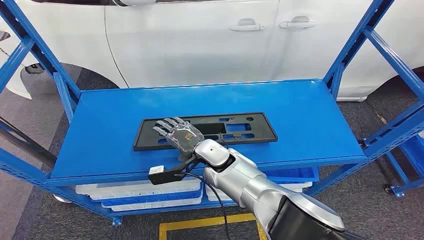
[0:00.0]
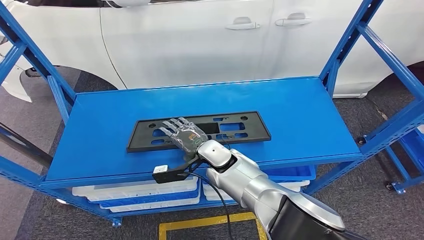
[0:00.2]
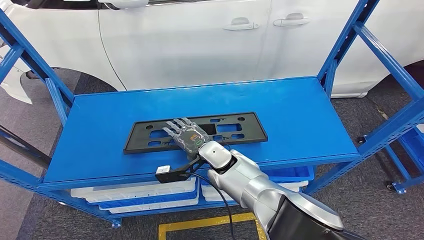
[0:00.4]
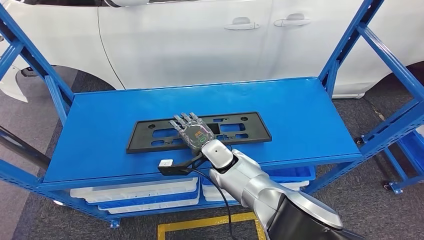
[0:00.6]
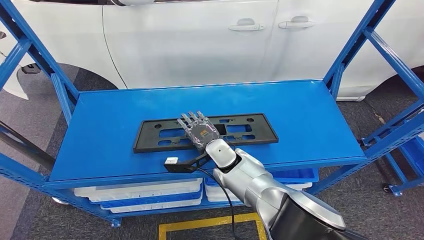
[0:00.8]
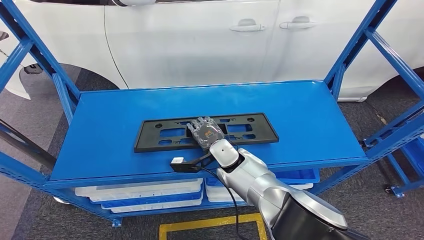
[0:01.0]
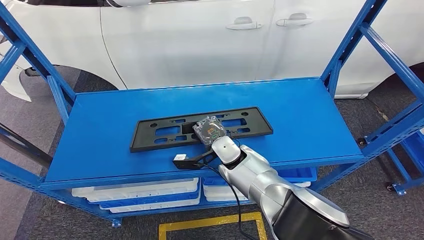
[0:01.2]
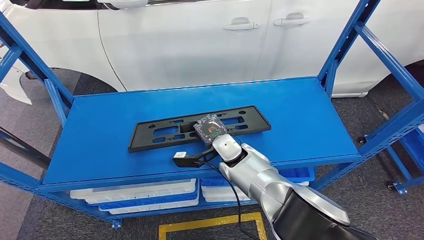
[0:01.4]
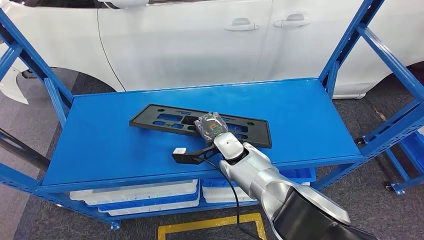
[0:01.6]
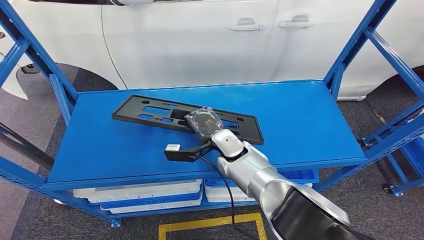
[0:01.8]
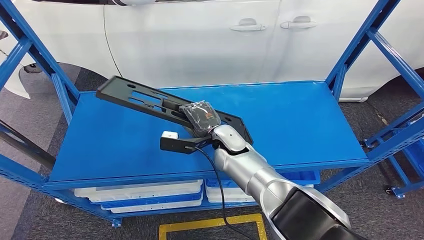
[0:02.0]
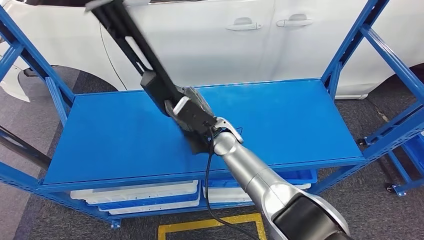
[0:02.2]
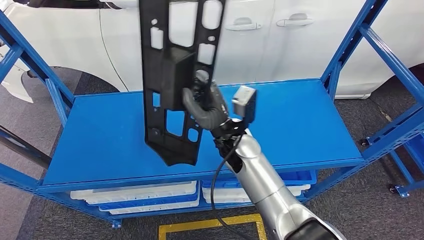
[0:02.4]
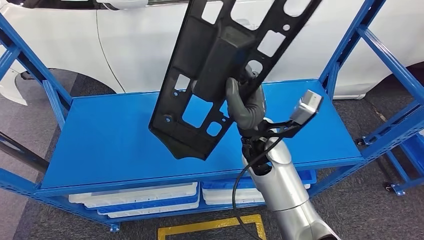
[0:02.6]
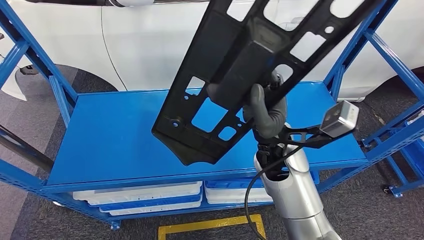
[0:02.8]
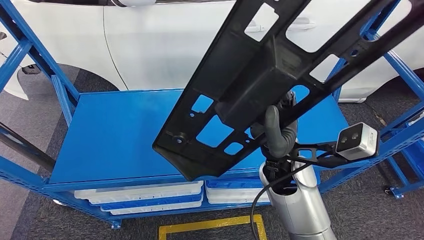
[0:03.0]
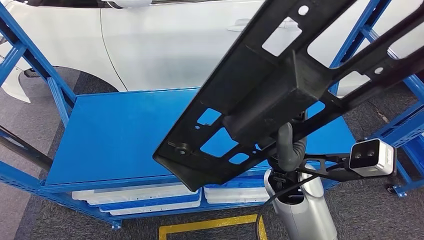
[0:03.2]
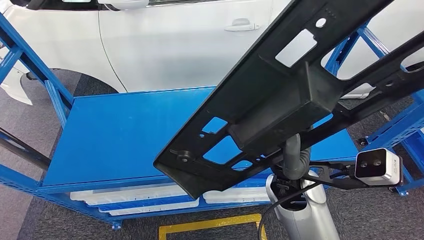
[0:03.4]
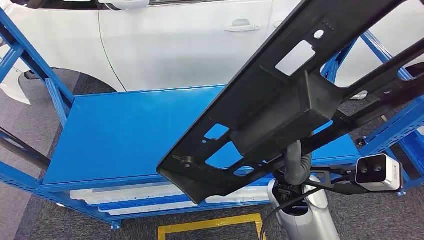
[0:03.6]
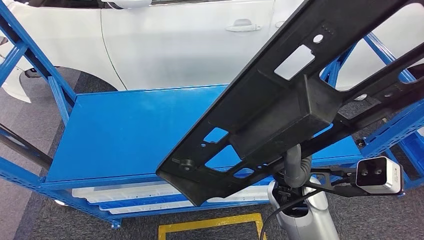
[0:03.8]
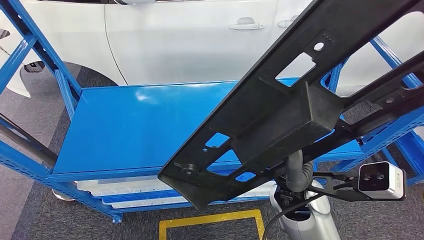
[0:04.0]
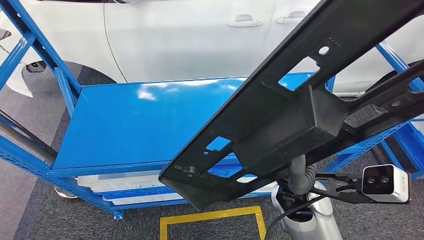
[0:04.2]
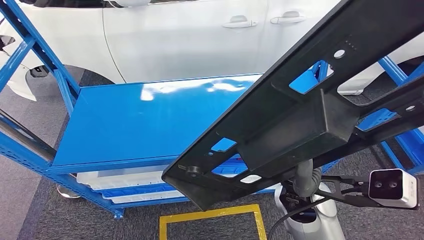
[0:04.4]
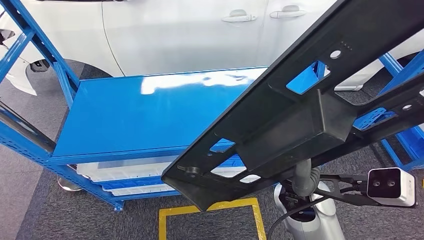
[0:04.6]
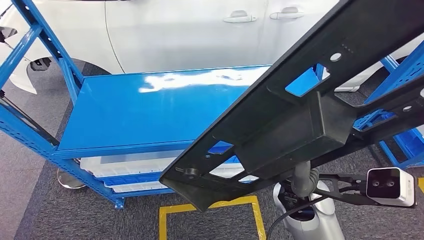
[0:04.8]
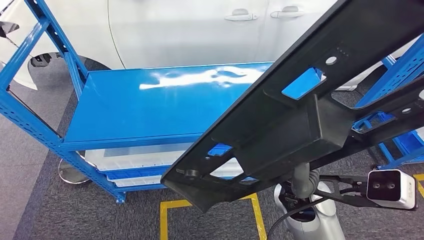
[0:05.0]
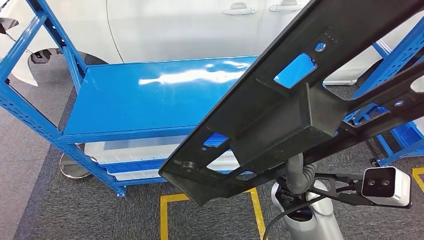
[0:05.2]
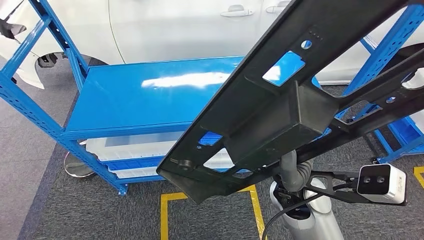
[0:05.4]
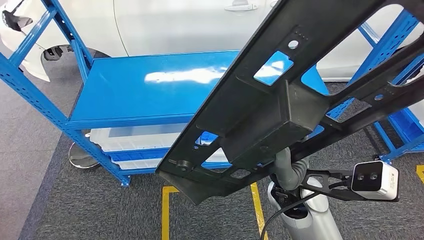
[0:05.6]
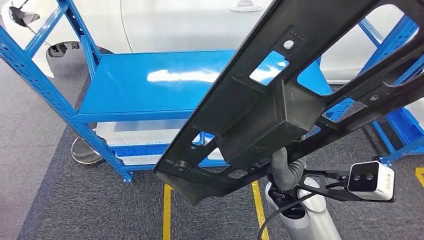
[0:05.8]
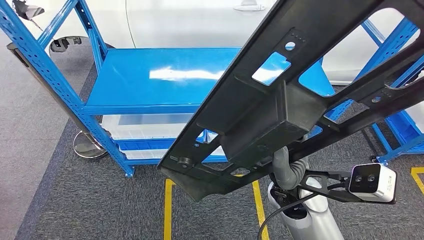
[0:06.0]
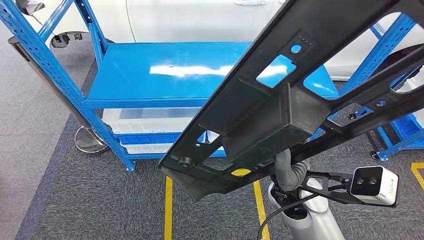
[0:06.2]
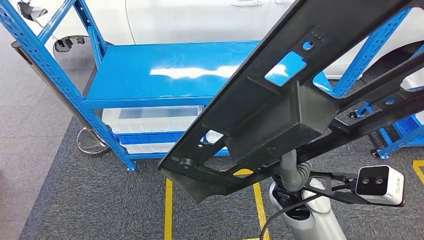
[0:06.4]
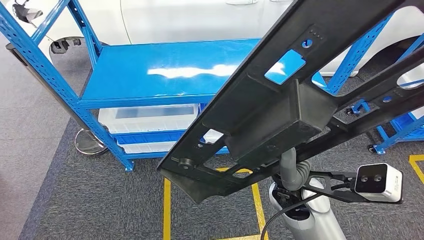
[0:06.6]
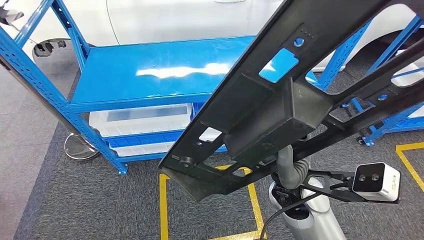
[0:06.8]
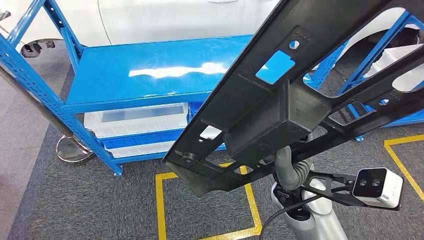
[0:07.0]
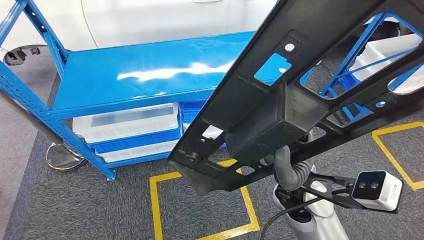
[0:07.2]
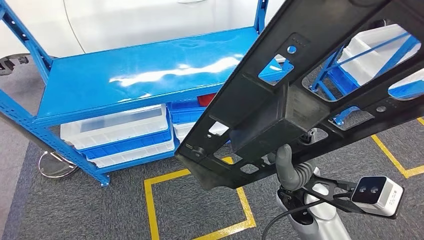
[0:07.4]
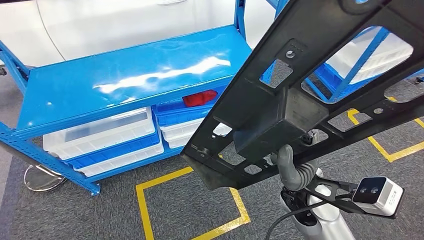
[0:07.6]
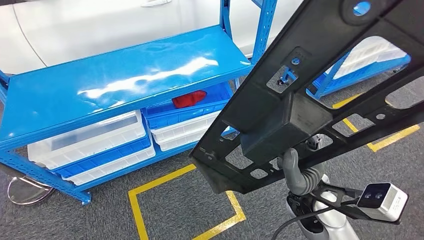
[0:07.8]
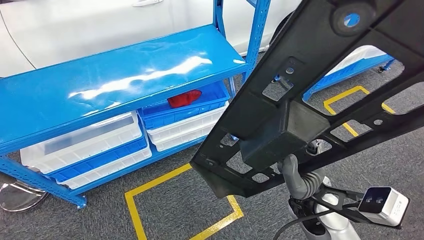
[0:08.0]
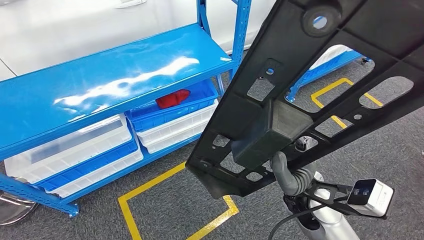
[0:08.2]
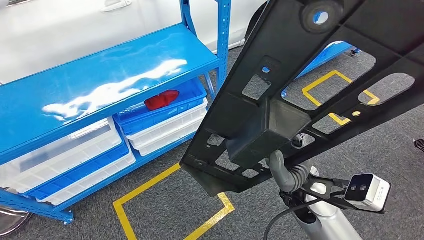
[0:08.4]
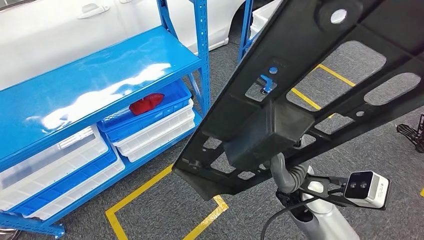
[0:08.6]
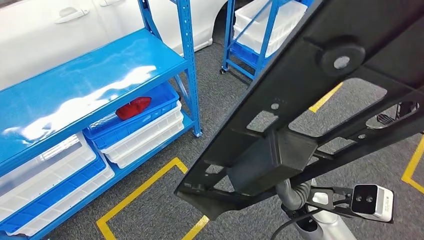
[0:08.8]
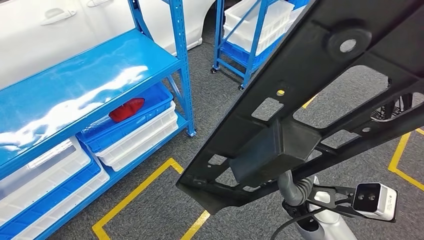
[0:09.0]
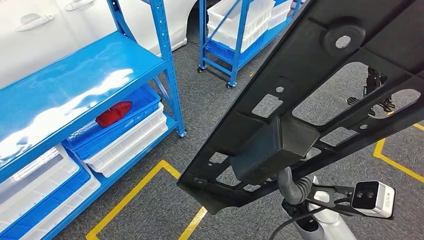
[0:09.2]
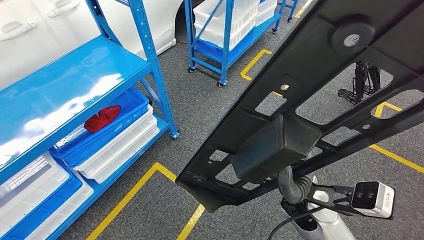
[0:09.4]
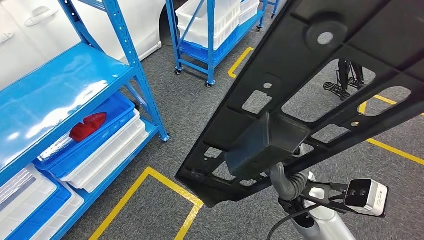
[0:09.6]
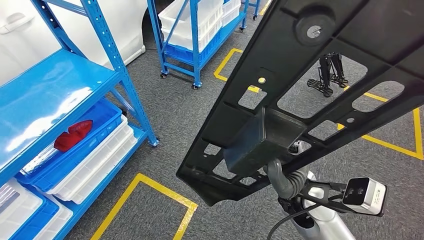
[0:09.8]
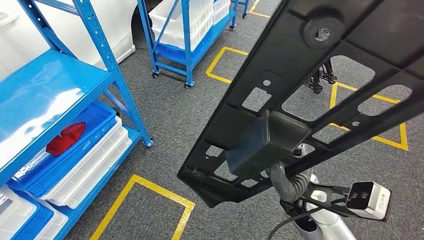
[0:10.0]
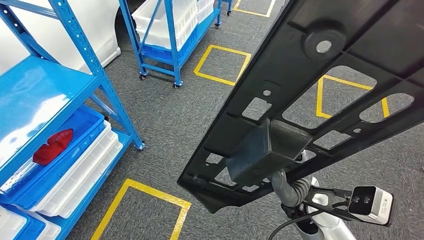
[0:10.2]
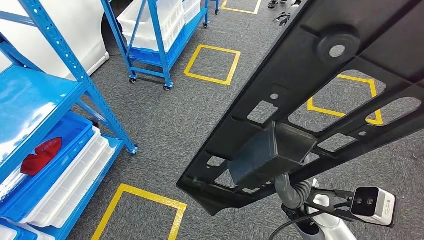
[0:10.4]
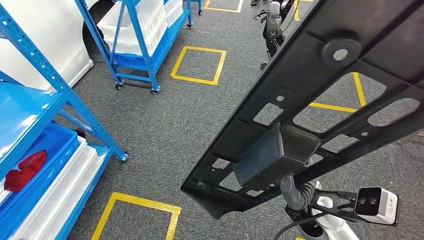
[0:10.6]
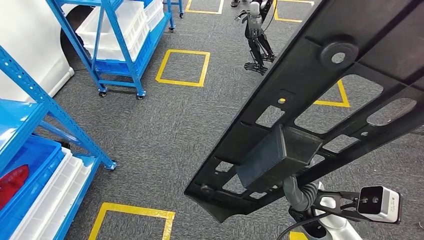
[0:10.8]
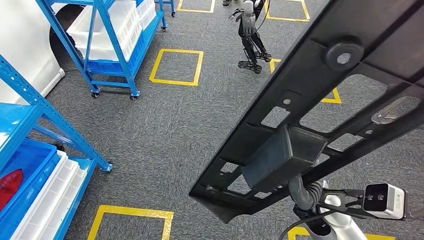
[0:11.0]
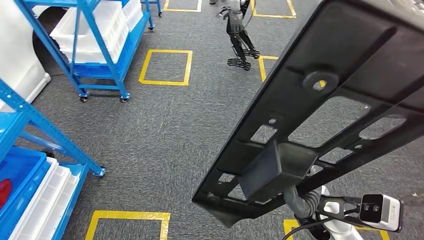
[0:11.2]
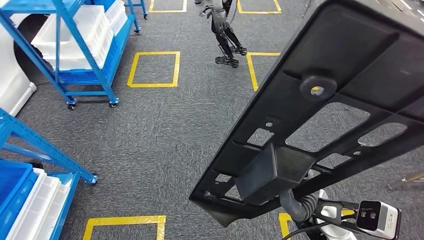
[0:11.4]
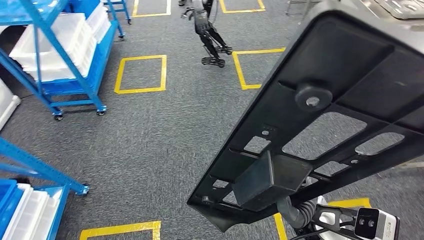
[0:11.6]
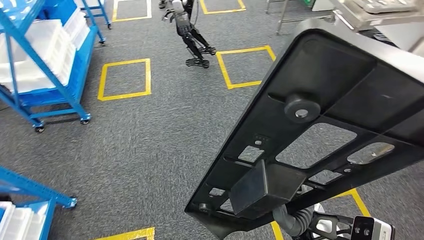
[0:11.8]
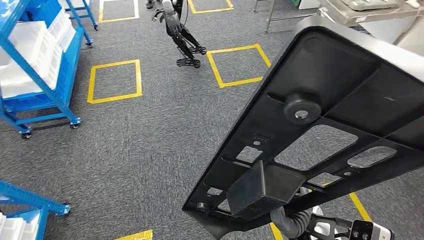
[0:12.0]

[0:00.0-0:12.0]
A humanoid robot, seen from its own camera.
Step, 0:00.0 to 0:03.0: Pick up the small component from the shelf.

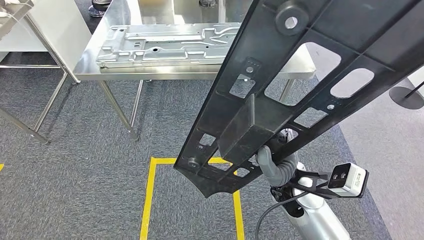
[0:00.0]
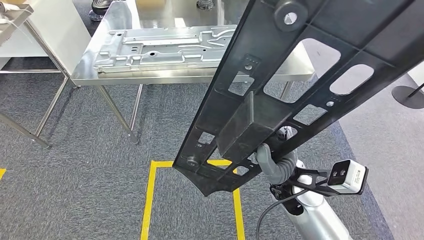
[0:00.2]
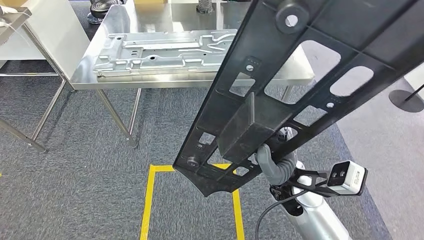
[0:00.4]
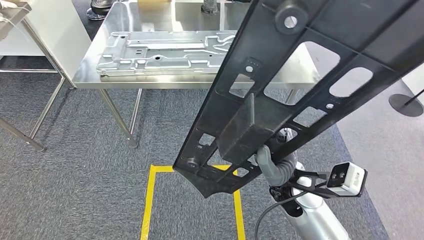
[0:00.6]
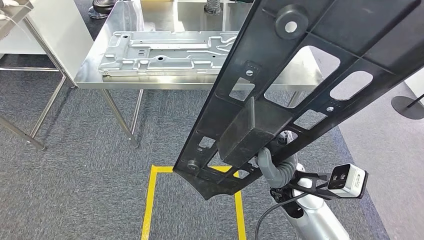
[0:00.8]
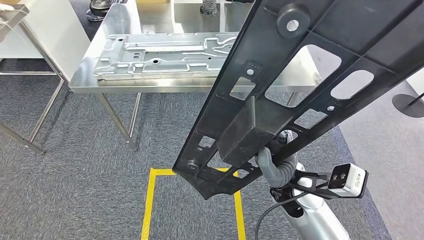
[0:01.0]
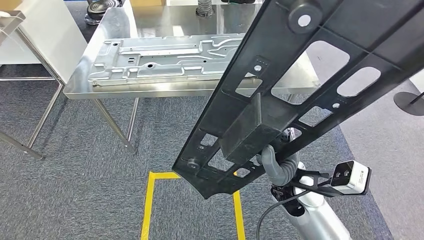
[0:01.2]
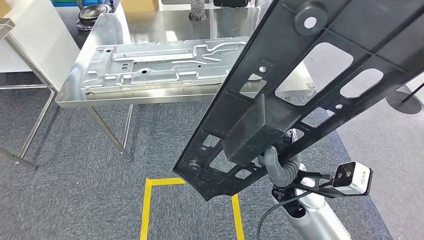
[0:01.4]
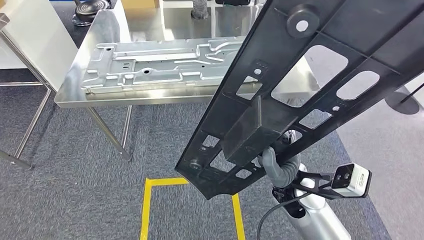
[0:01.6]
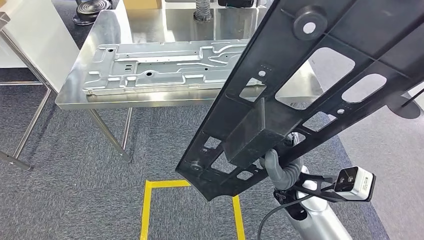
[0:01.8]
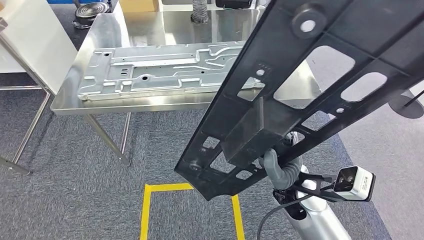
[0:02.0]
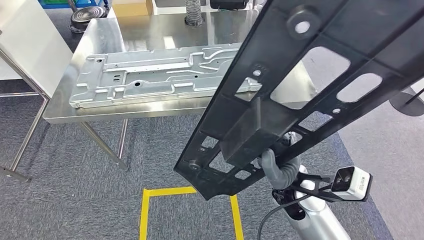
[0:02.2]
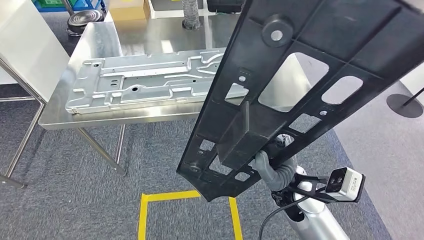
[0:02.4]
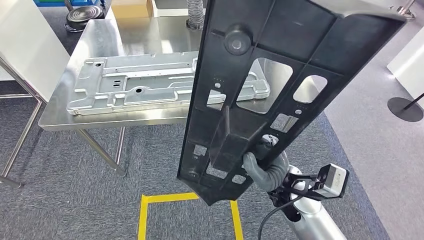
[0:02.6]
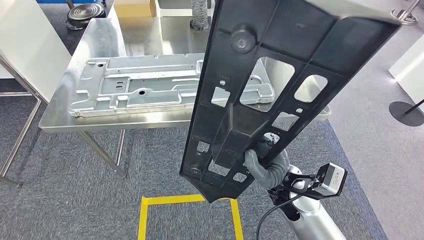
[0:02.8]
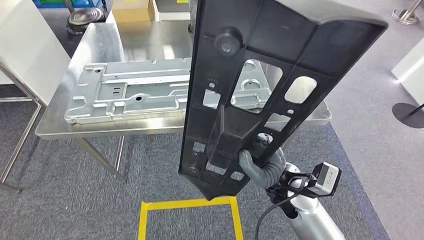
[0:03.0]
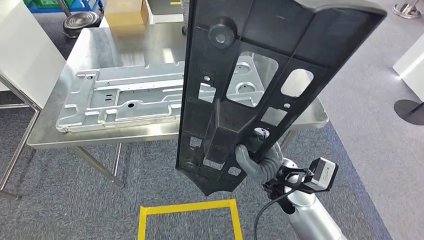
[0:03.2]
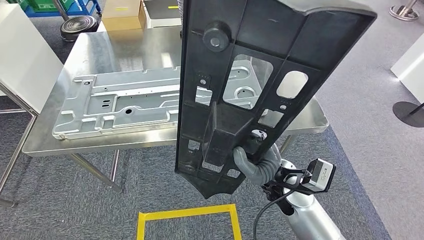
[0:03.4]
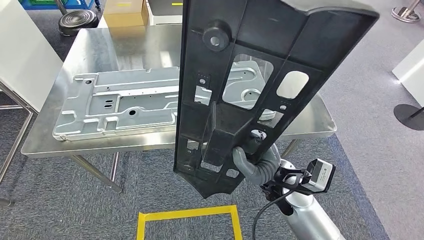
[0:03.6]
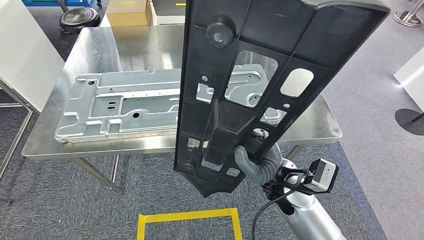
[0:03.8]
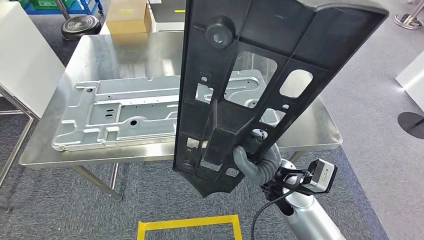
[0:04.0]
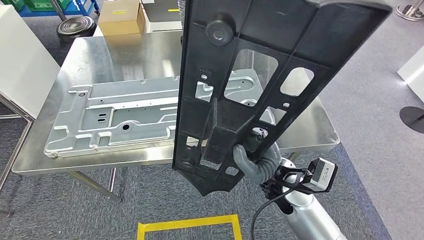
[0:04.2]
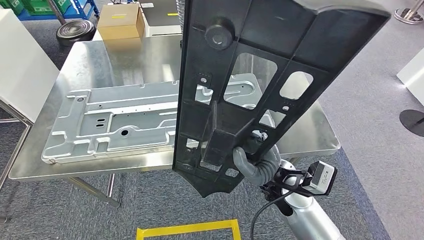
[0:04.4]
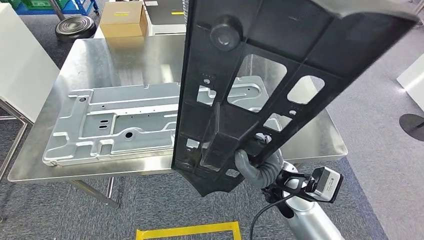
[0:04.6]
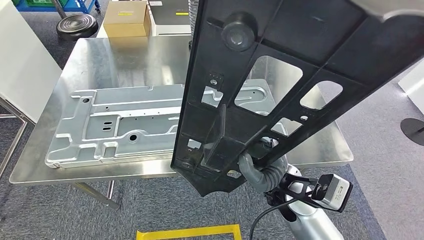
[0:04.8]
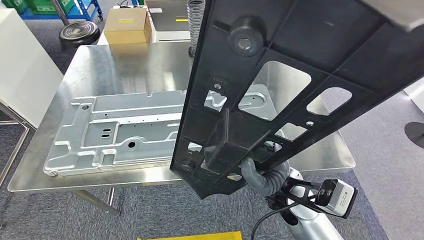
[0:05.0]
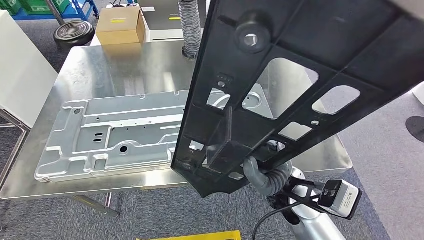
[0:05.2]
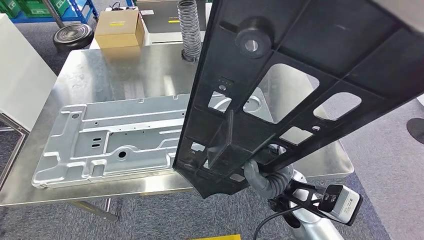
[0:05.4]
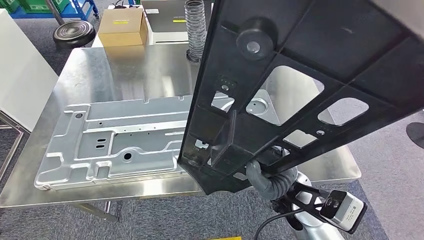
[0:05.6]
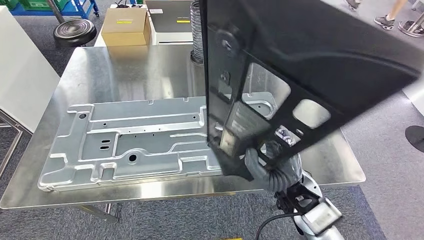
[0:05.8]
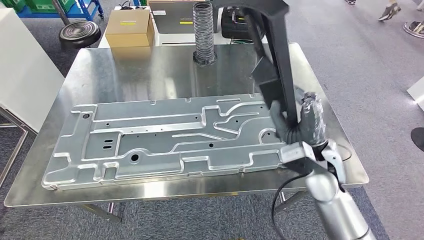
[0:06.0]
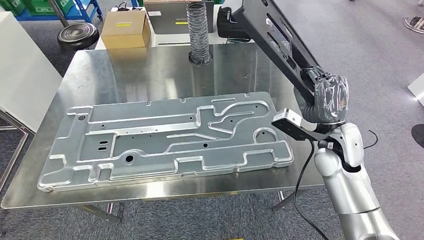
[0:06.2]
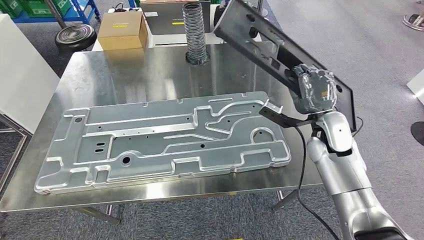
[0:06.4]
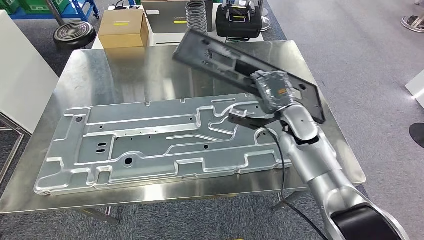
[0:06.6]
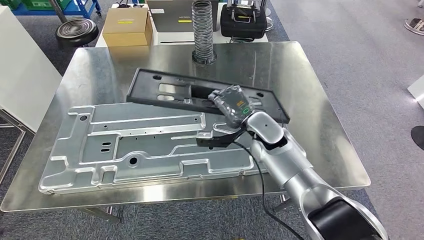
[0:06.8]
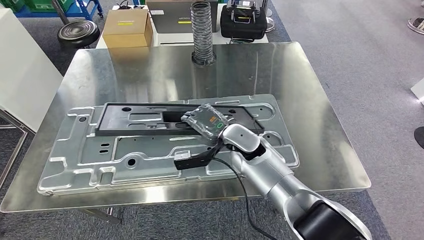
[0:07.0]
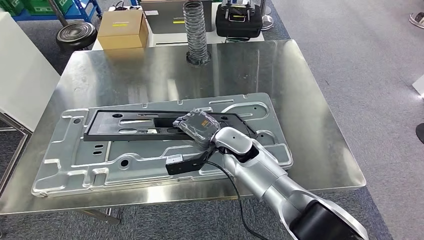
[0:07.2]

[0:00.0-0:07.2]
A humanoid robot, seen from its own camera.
Step, 0:00.0 to 0:06.0: Move the small component to the workbench.
